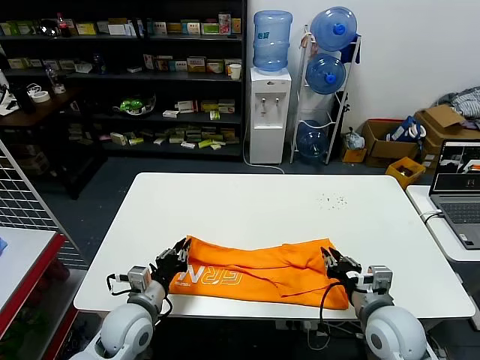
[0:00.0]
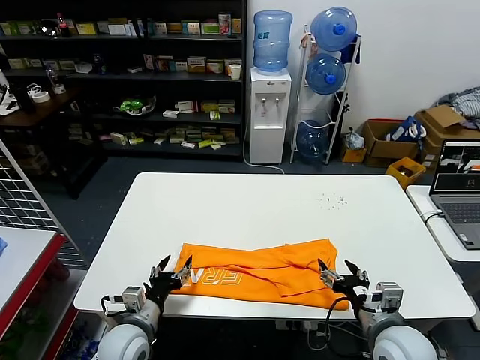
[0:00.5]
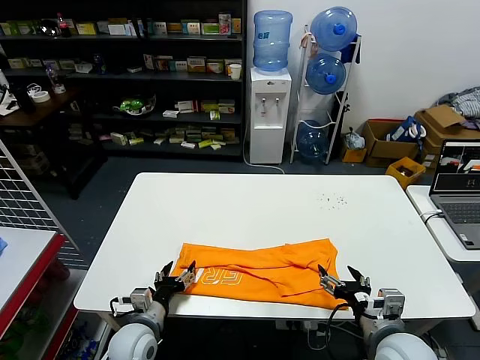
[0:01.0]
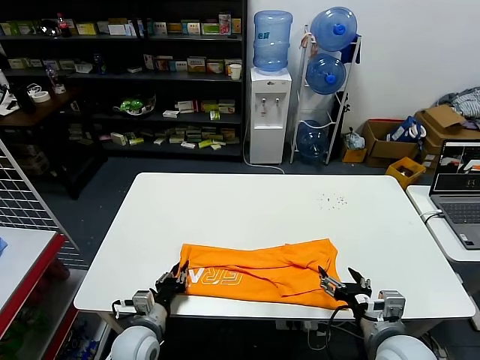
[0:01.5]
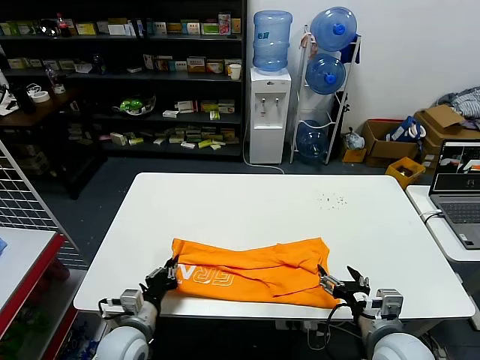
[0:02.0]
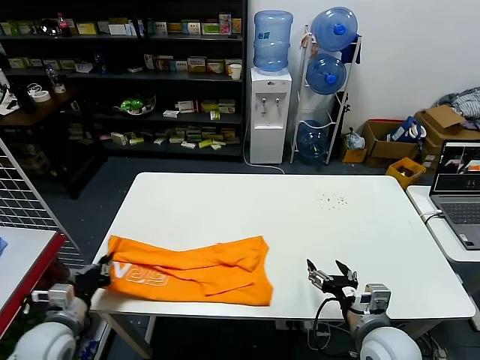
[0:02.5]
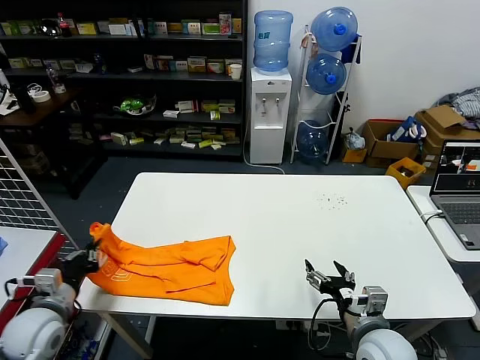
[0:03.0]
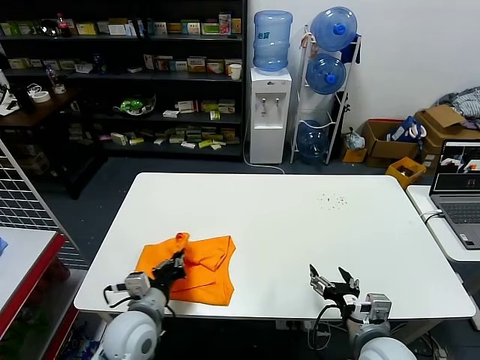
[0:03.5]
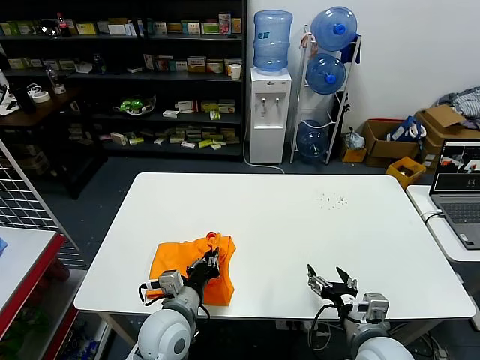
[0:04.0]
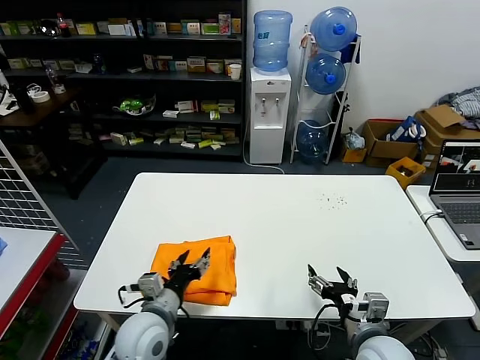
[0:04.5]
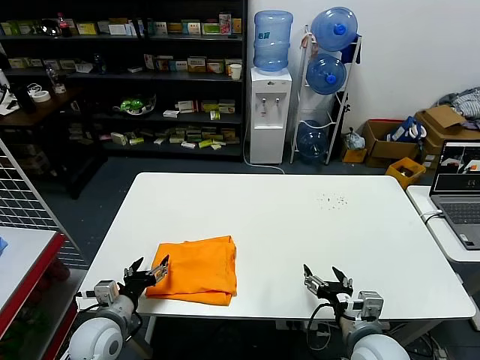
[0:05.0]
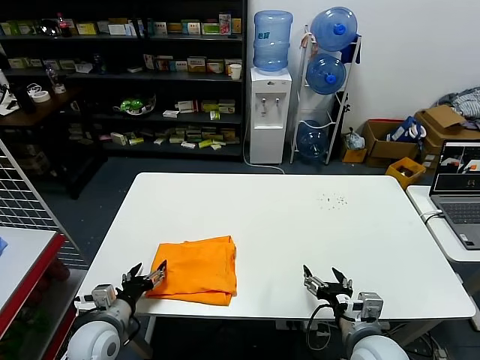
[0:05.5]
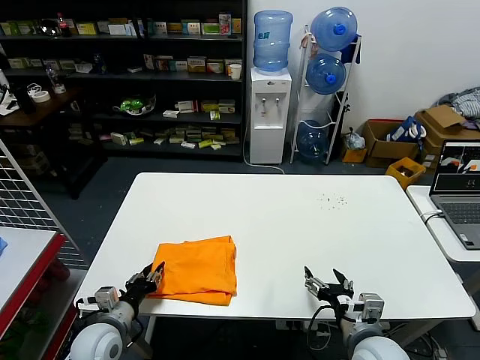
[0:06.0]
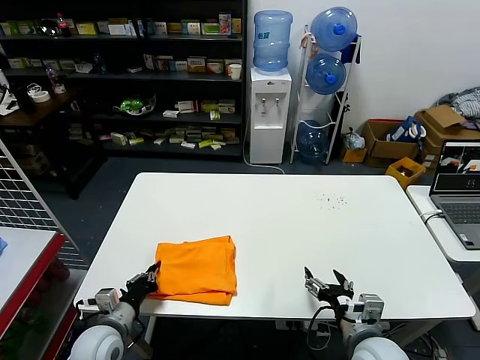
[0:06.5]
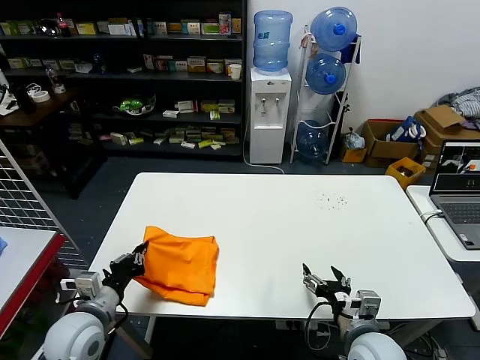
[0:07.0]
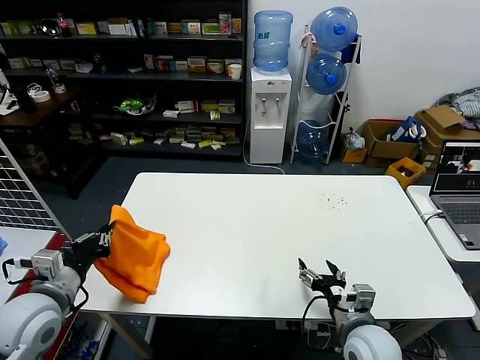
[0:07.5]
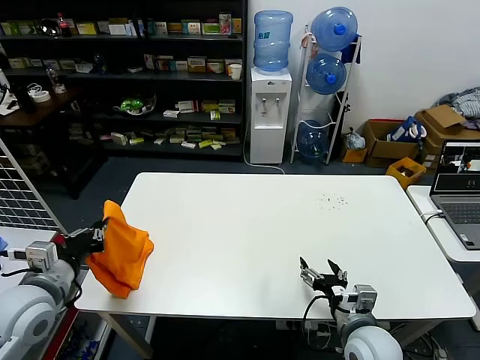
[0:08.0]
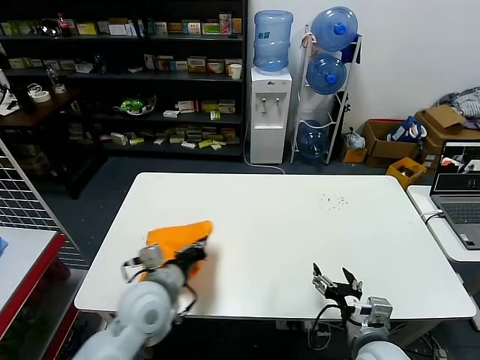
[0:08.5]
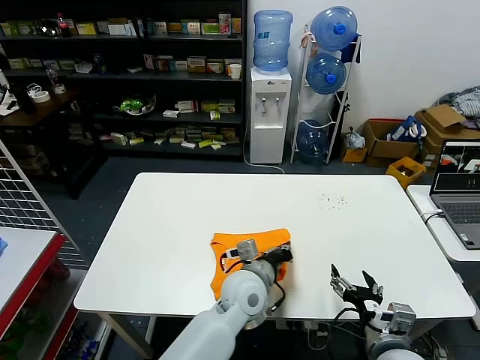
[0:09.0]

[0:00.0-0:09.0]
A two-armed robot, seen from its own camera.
Task of the whole recording: fold and organize the clothes.
Step, 0:01.0 to 0:01.5: use the left gripper to clamp the left edge of the fabric.
Step, 0:02.0 to 0:04.0: use the left gripper to drag the left edge of the fabric to the left and folds it over the right edge.
0:00.0 to 0:02.0: The right gripper opens up, while the left gripper heads downward, covering roughly 5 cm, and opens and closes again.
0:02.0 to 0:04.5: The left gripper goes about 5 cm upward, reaches some 15 cm to the left, then returns, and opens its fingers.
0:04.5 to 0:07.0: The left gripper goes roughly 15 cm to the left, and closes up.
0:07.0 to 0:09.0: The left gripper moves to the right, roughly 30 cm.

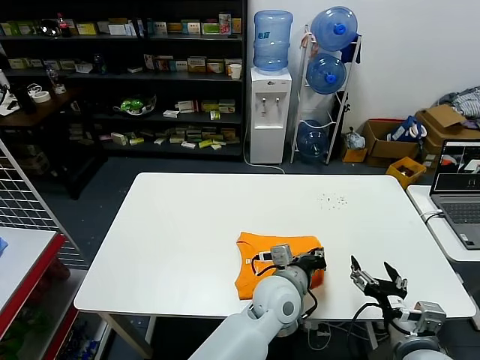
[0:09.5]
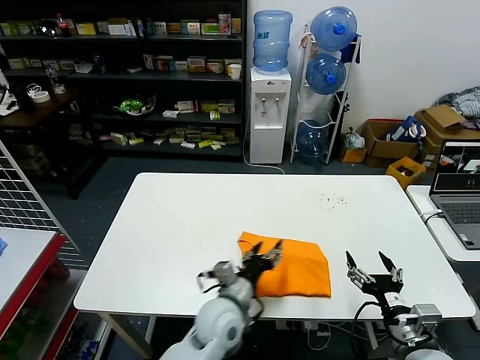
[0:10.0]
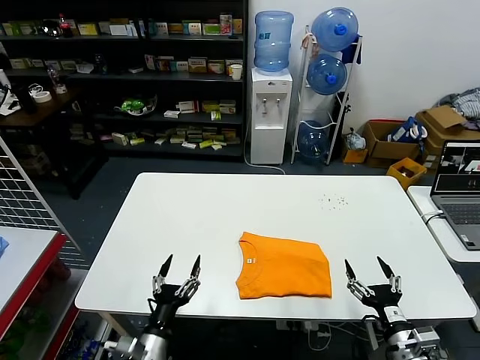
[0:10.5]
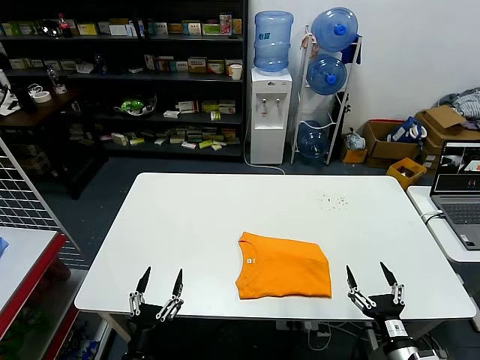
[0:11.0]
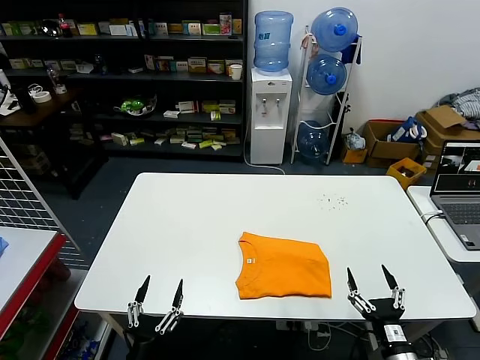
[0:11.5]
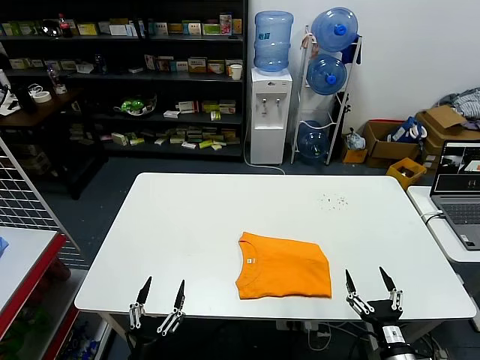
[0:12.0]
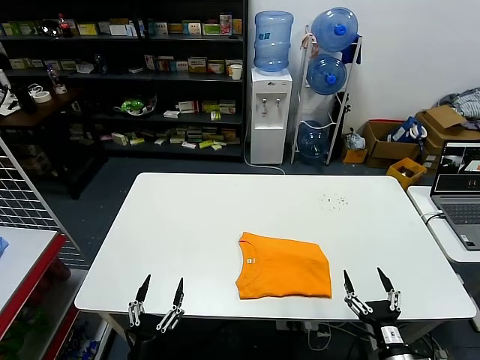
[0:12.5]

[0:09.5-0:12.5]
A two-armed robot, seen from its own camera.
Task of the whole recording: fold and organize the clothes.
0:09.5 to 0:11.0: The left gripper goes approximately 35 cm to the left and backward, and opens its fingers. The right gripper heads downward, covering about 10 cm.
0:11.0 to 0:12.5: The grippers move only a little.
